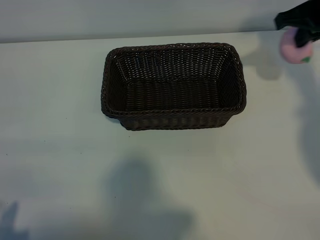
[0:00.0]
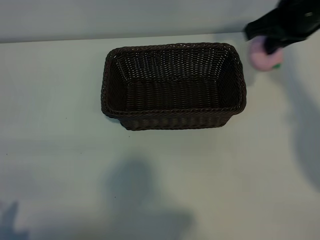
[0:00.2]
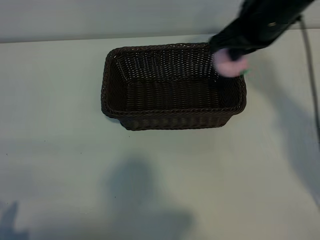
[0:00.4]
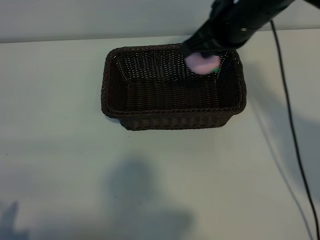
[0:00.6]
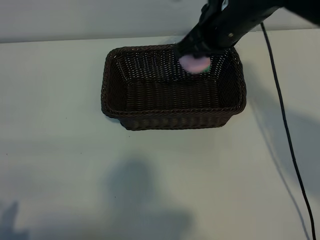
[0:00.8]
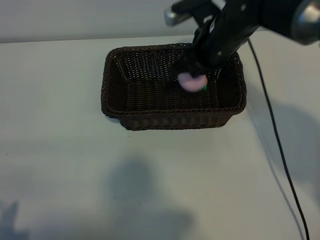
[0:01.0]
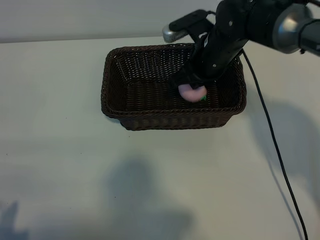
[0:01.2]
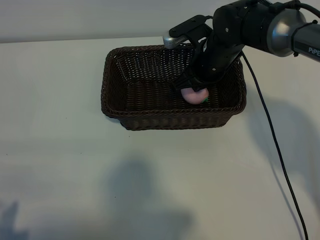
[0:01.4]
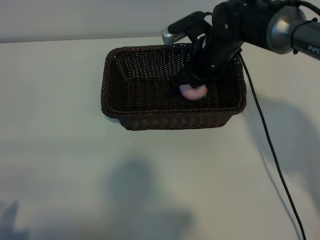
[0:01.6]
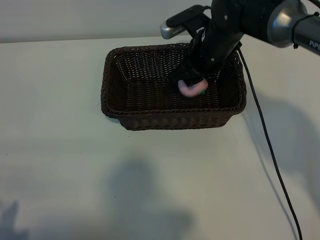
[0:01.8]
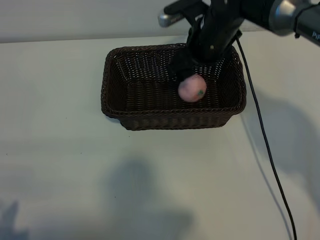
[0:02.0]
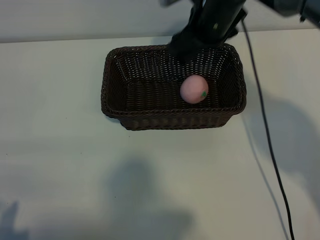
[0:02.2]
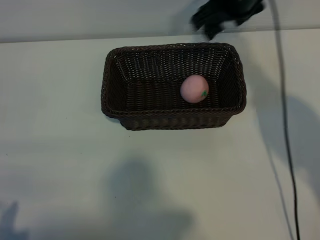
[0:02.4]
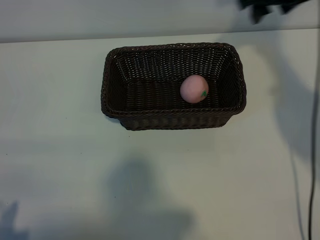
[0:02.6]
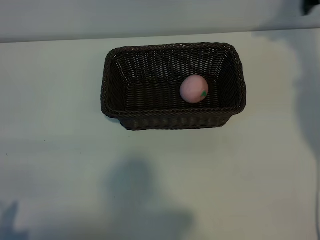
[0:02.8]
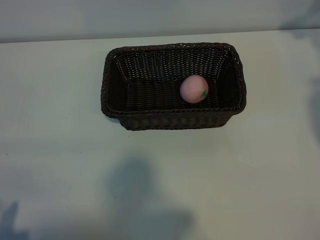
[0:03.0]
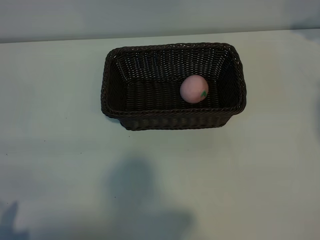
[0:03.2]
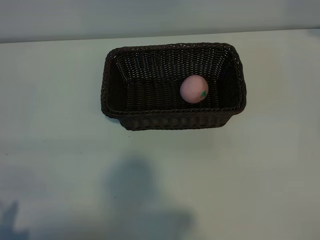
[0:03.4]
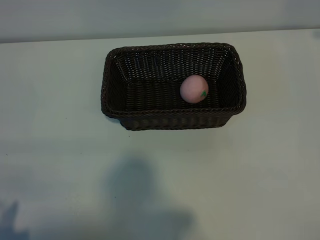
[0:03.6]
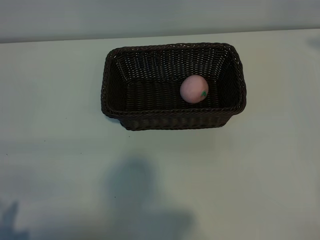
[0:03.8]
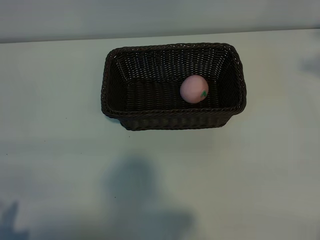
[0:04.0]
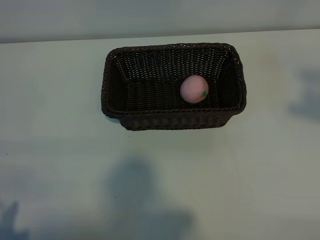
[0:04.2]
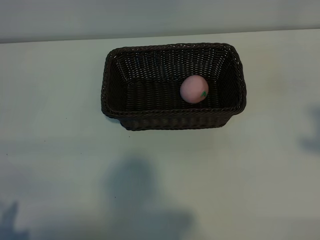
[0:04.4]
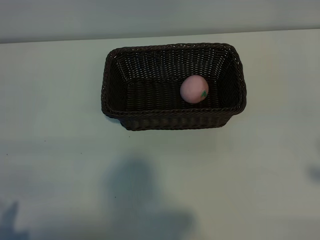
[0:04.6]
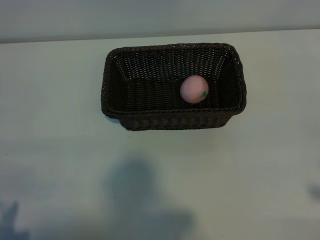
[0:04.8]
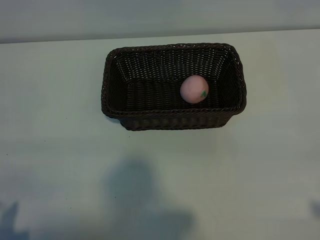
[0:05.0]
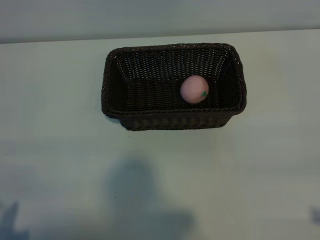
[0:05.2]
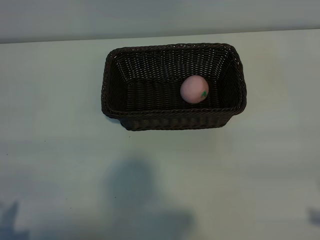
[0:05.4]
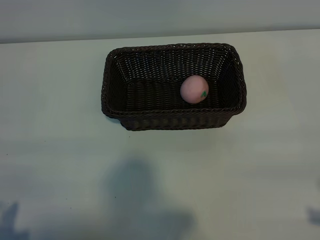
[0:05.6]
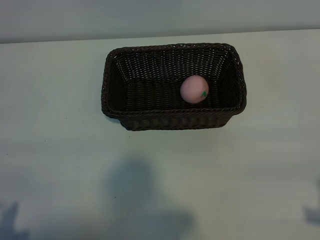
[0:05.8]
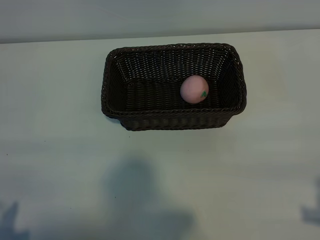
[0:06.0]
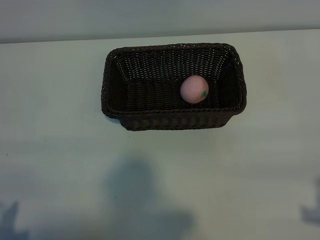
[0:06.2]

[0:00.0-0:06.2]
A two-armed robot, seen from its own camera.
Task of the whole recording: pick up the peach and put it into the basket.
Step, 0:00.0 to 0:01.8: Place the peach in the basket with right gripper.

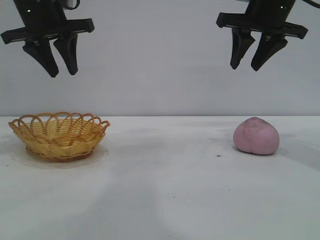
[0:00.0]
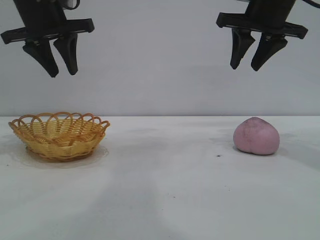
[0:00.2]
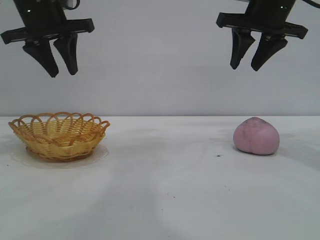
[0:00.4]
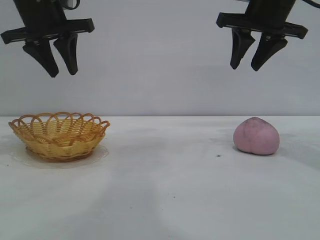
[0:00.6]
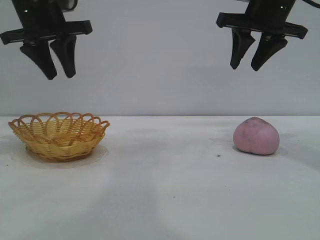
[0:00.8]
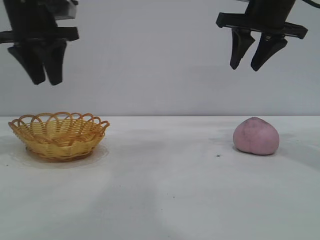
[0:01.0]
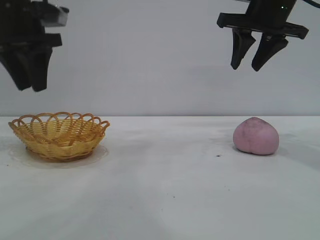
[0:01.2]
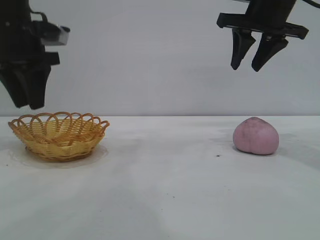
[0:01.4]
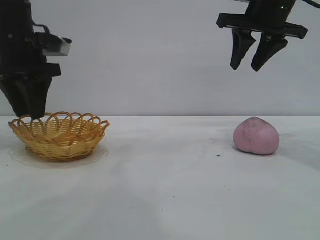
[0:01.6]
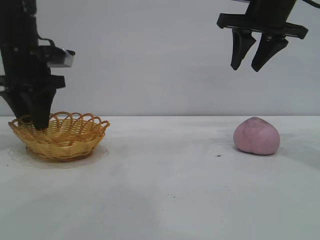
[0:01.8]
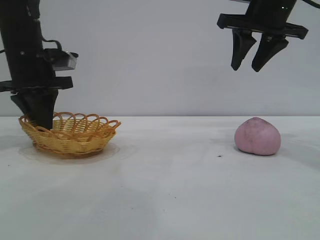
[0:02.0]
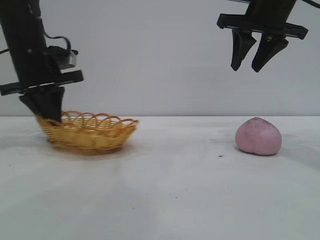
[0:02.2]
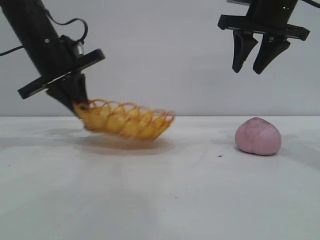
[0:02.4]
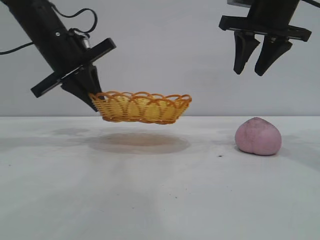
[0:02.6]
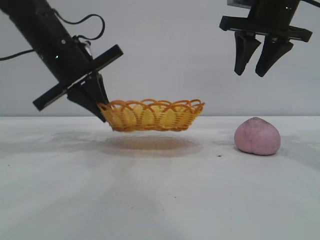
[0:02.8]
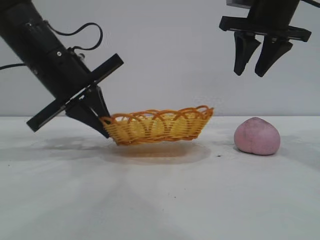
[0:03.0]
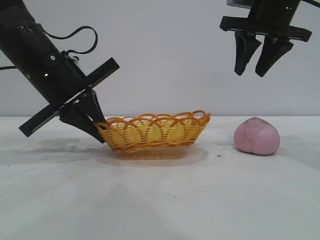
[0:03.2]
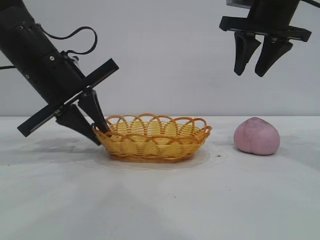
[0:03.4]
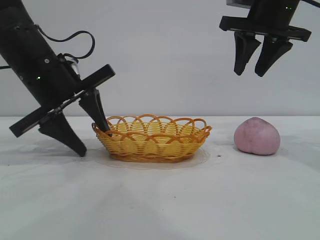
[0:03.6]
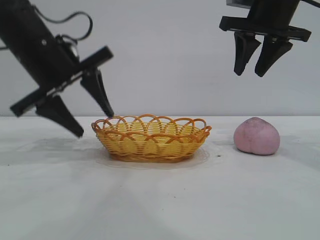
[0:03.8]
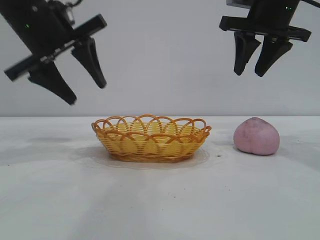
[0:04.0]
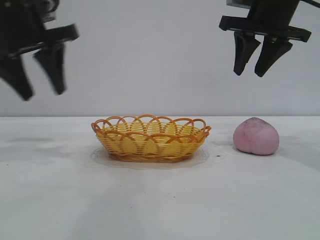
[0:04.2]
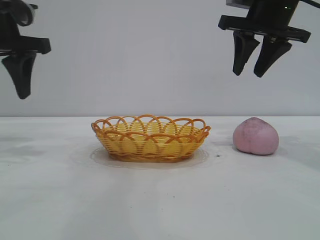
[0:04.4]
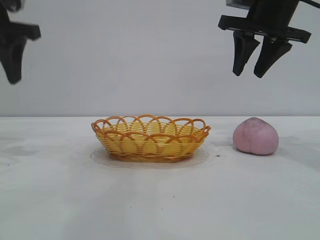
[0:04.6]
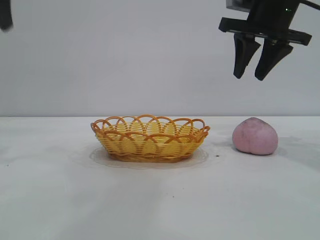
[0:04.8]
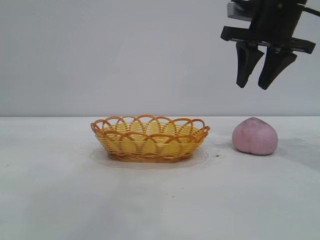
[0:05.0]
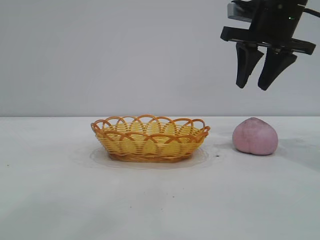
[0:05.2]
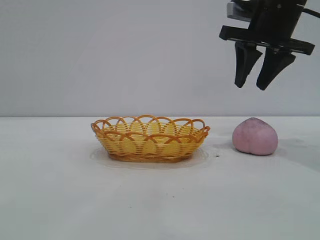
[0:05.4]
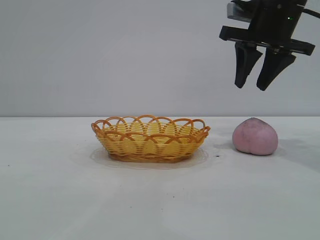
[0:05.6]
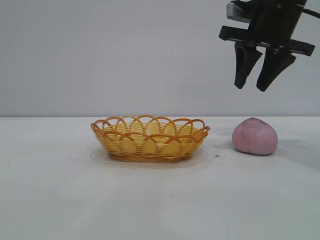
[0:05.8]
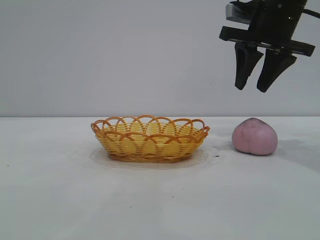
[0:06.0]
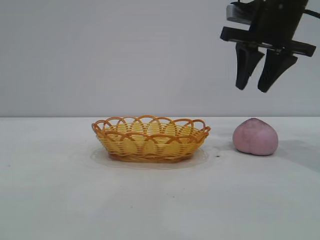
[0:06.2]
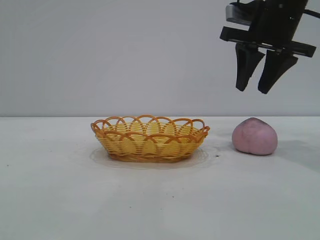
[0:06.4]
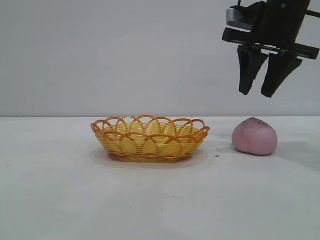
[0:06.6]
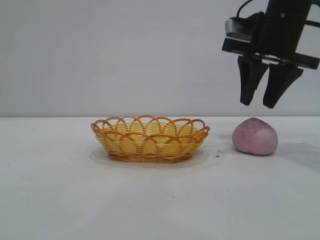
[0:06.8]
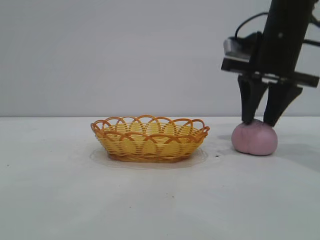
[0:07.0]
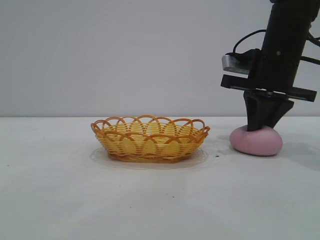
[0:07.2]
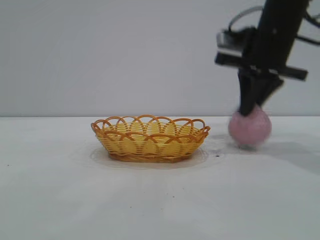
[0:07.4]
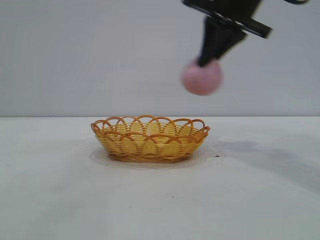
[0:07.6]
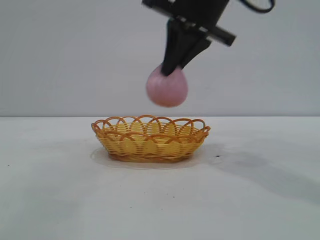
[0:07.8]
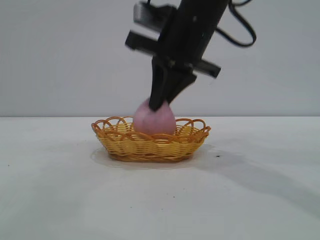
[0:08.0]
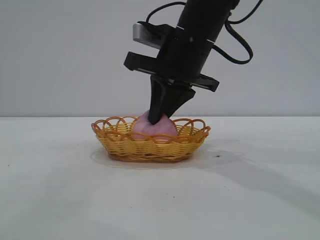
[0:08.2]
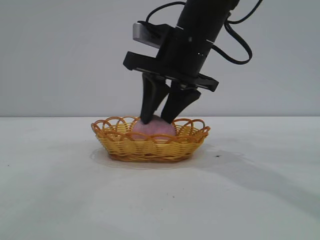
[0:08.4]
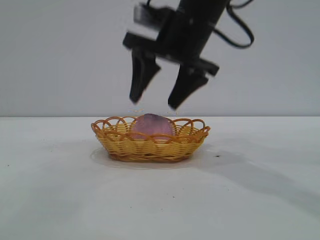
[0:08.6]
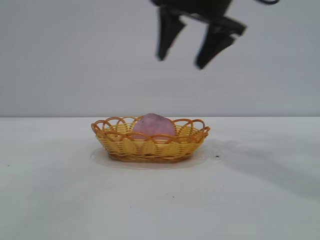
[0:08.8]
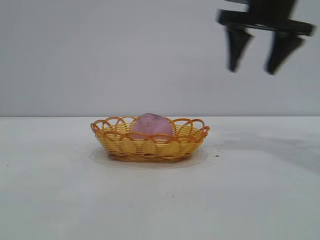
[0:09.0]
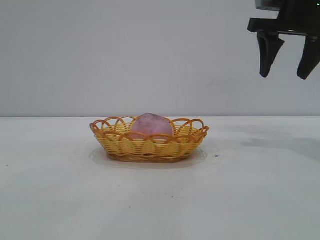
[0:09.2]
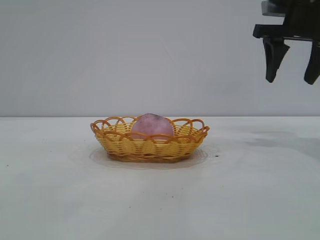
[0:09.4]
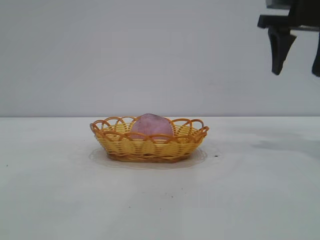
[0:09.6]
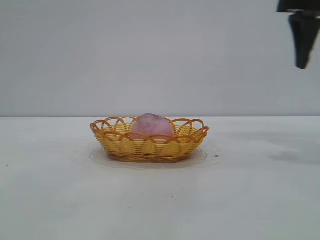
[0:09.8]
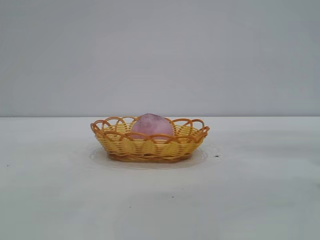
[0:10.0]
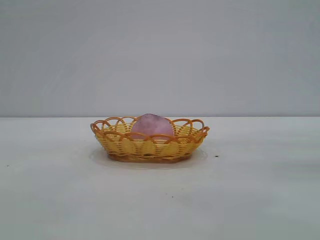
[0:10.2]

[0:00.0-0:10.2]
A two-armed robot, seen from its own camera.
Task of the whole recording: pick up the peach and put it into the basket.
Step, 0:00.0 to 0:04.0: Move the basket to the center of view.
Step, 0:04.2 to 0:07.4: Pick up the peach.
Step, 0:07.6 to 0:08.6: place the peach into the basket.
